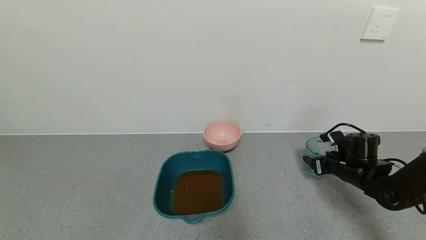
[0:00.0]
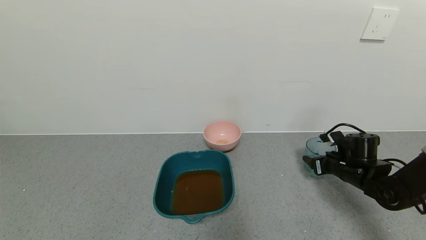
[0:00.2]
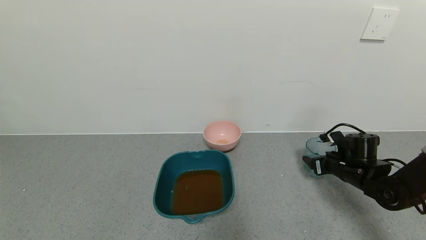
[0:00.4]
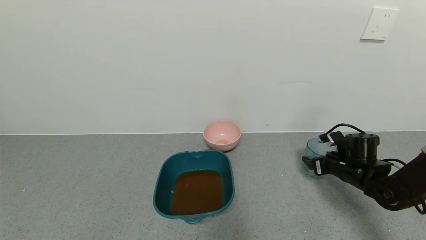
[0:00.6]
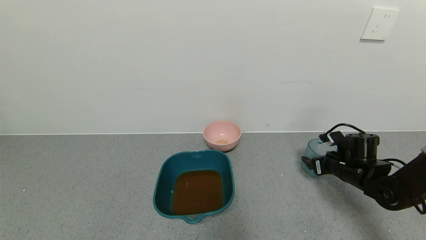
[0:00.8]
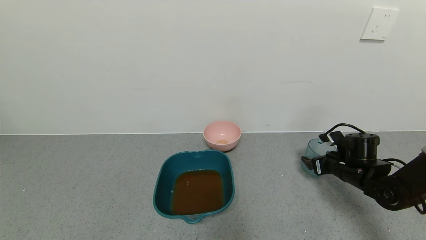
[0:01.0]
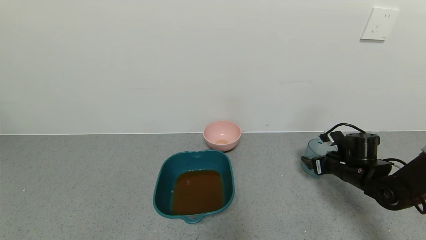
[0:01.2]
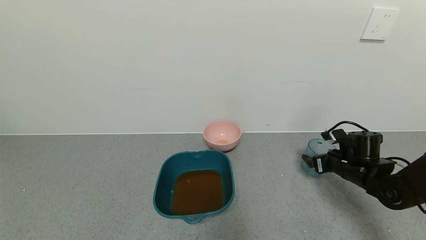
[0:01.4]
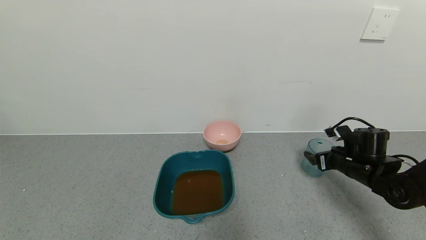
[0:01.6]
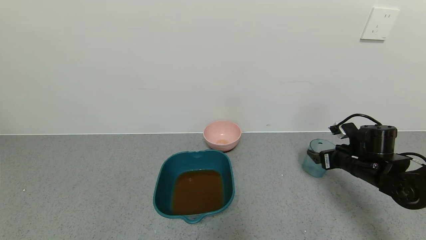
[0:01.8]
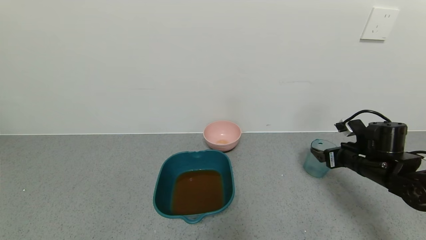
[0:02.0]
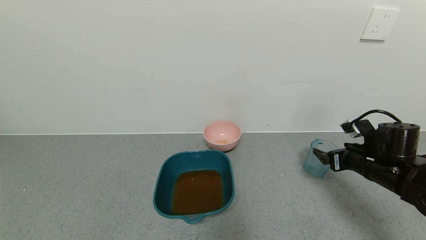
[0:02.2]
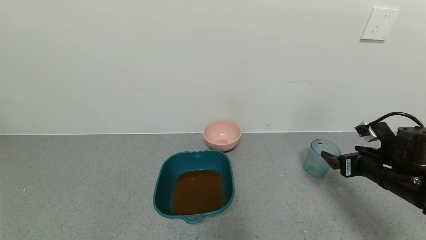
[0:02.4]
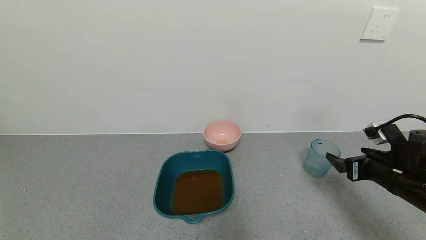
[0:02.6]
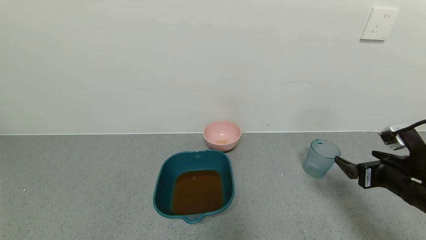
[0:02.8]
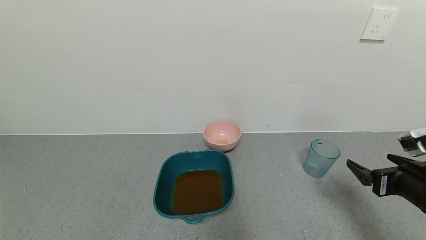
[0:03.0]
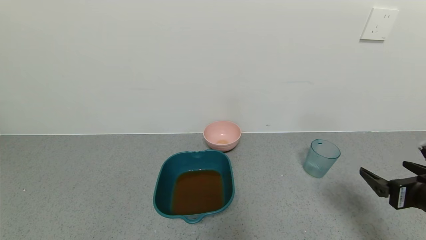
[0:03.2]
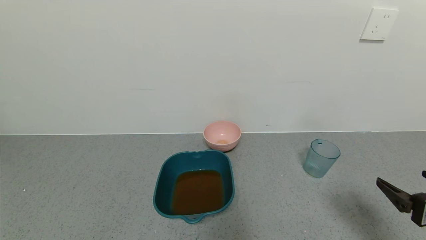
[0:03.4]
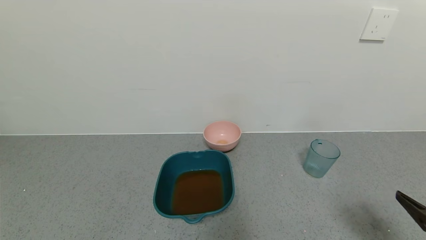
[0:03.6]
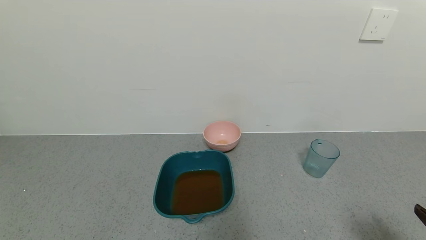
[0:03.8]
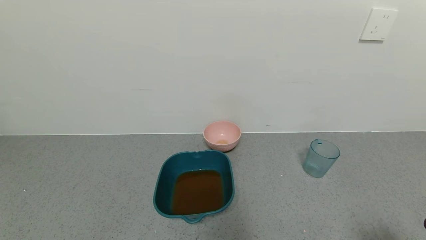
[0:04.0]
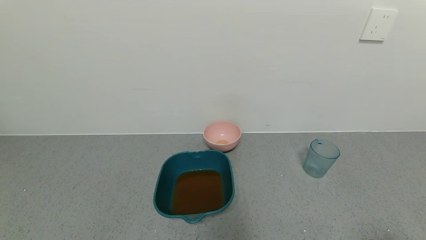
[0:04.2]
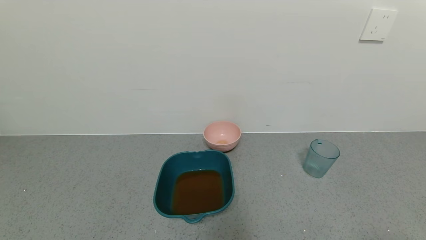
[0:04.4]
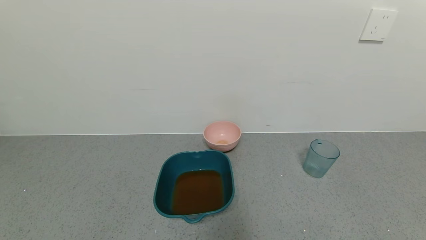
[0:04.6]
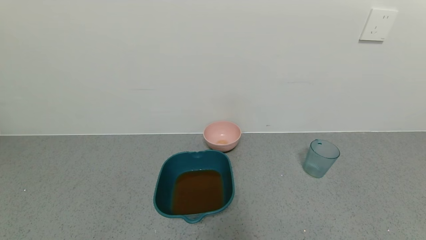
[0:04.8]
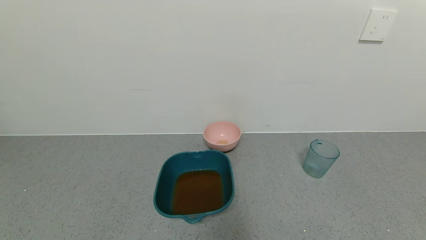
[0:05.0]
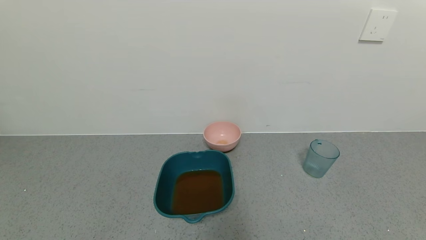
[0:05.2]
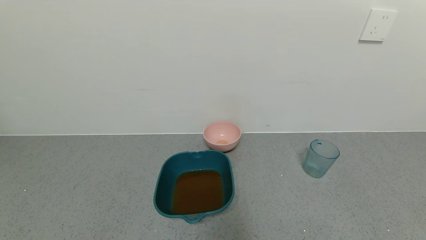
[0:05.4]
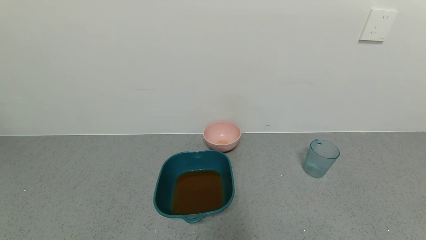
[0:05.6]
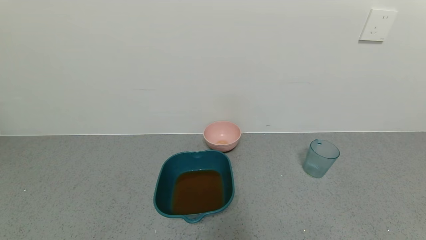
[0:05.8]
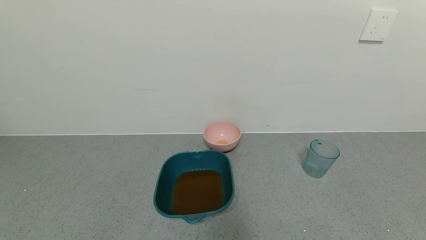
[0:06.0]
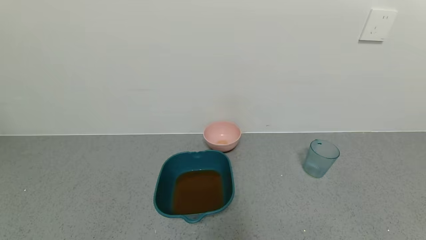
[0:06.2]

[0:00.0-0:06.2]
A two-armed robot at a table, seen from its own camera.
Task of the whole recording: use a gripper to pick up the cup and pour the liquid into a bowl or tray.
0:00.0 to 0:01.6: The right gripper opens up.
0:01.6 to 0:03.2: The right gripper goes about 20 cm backward.
0:03.2 to 0:04.6: The right gripper heads backward, covering about 15 cm.

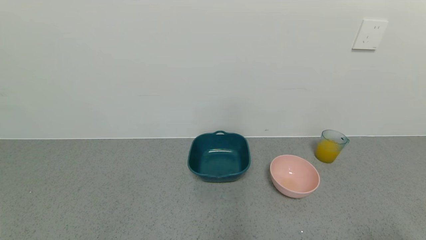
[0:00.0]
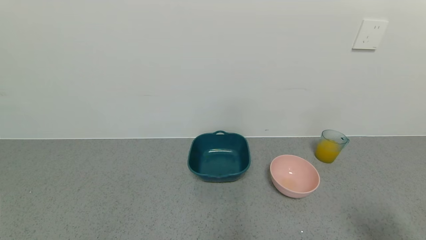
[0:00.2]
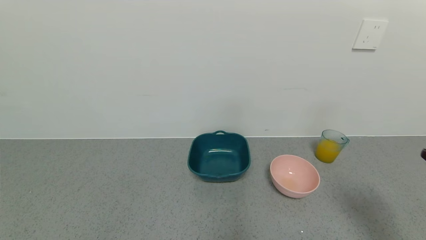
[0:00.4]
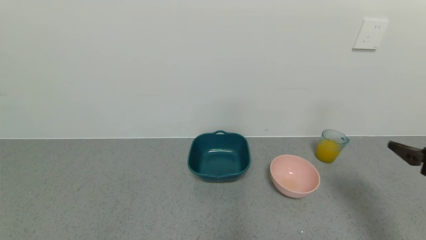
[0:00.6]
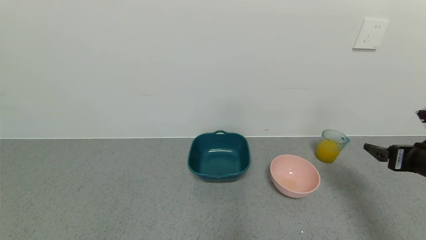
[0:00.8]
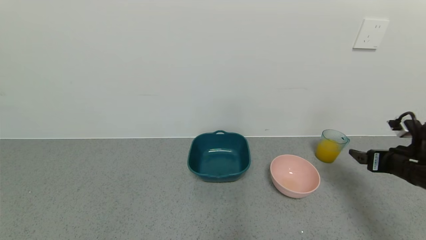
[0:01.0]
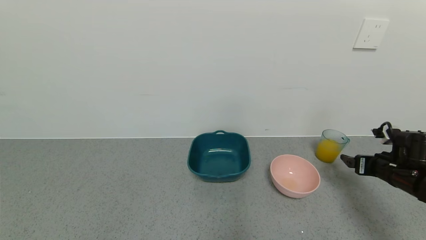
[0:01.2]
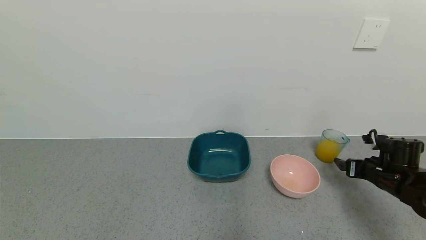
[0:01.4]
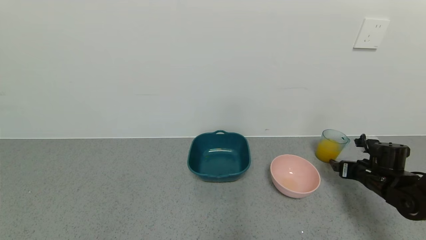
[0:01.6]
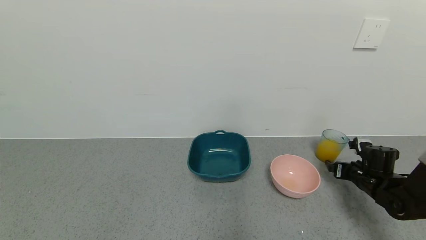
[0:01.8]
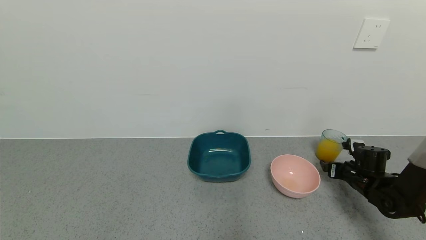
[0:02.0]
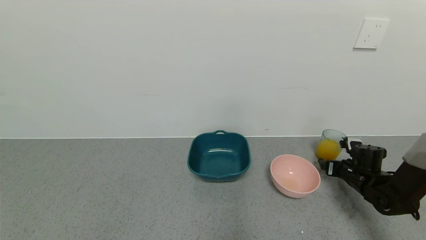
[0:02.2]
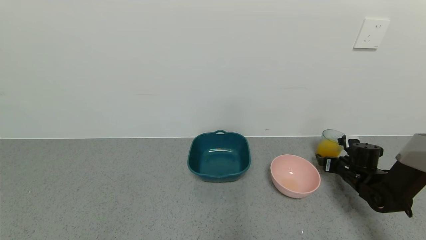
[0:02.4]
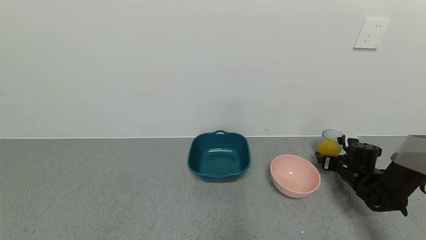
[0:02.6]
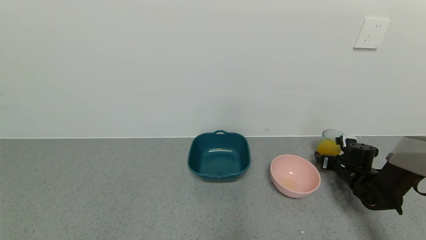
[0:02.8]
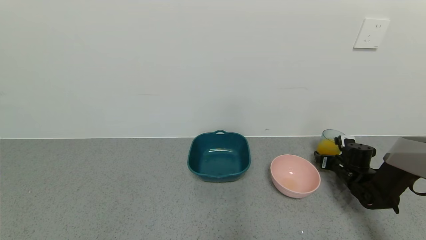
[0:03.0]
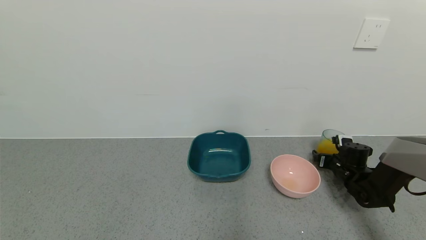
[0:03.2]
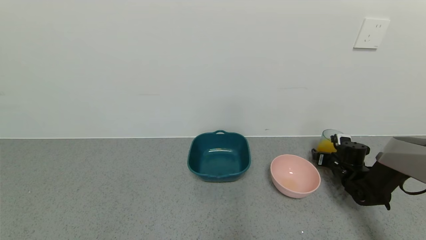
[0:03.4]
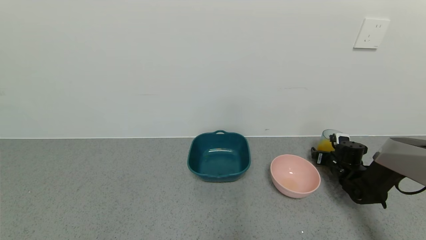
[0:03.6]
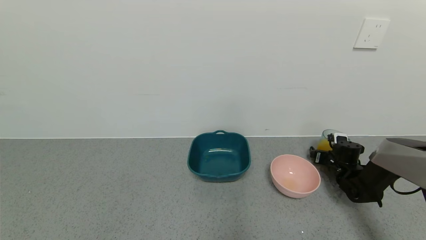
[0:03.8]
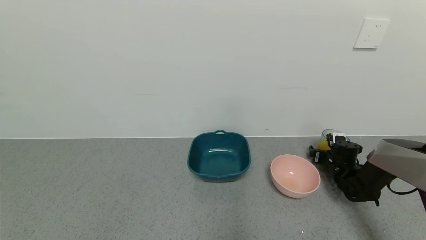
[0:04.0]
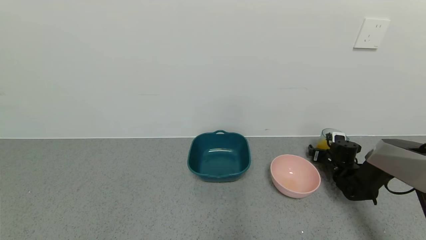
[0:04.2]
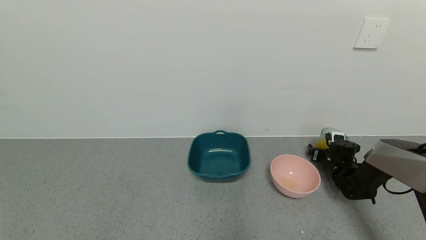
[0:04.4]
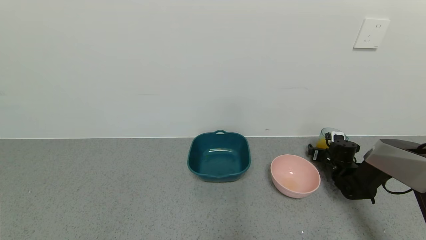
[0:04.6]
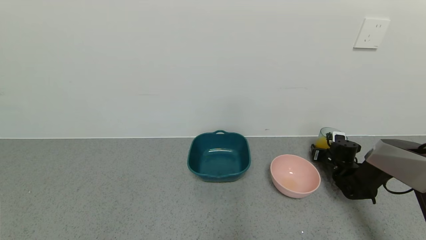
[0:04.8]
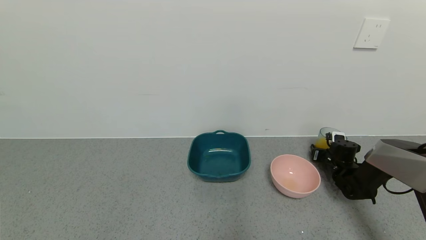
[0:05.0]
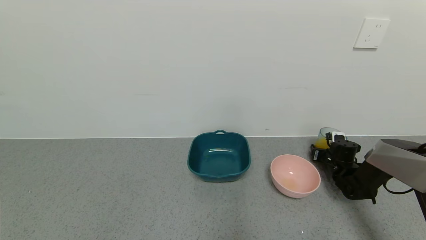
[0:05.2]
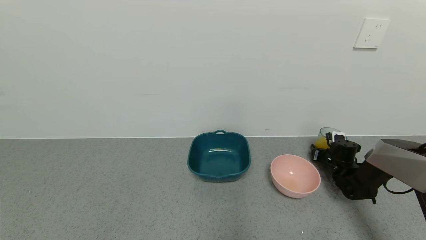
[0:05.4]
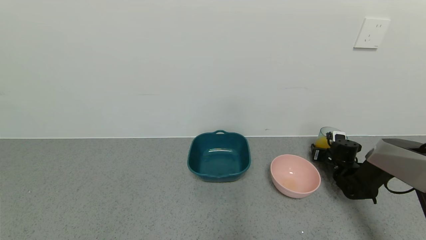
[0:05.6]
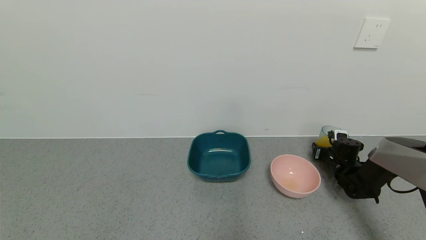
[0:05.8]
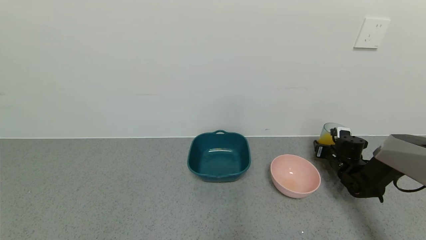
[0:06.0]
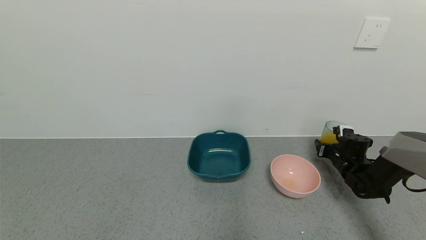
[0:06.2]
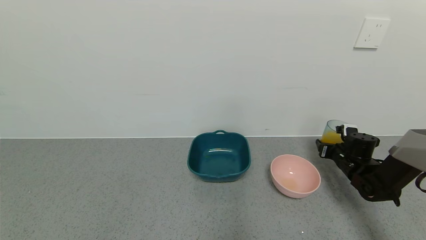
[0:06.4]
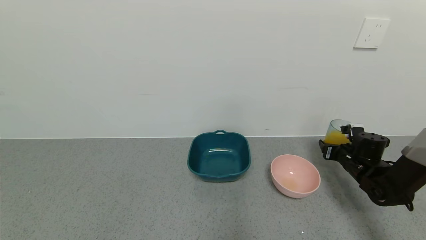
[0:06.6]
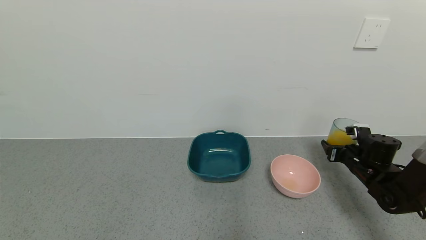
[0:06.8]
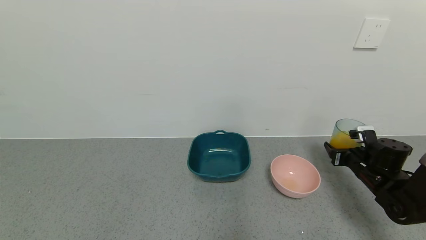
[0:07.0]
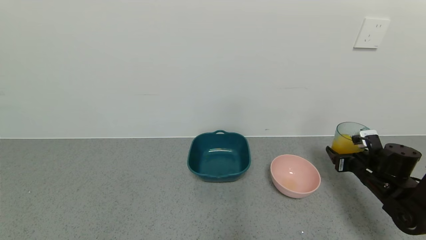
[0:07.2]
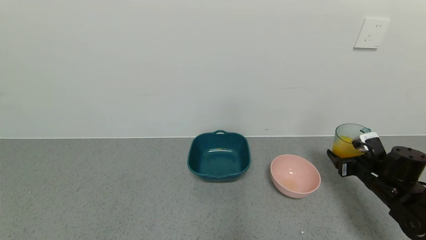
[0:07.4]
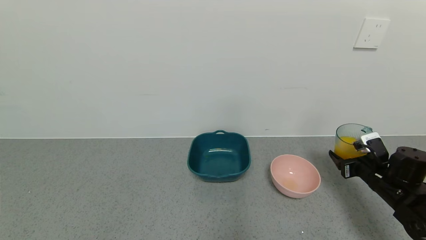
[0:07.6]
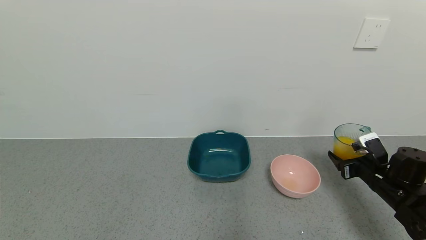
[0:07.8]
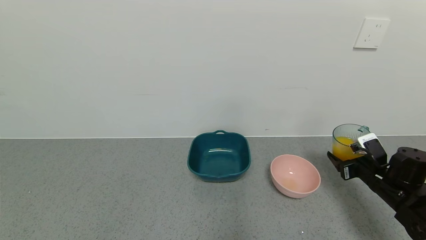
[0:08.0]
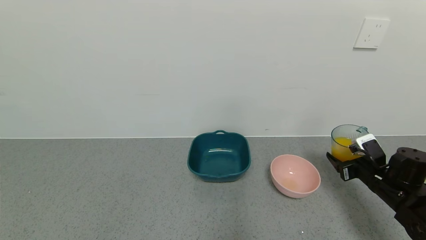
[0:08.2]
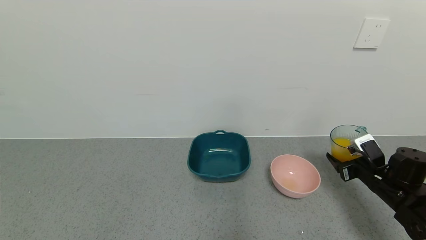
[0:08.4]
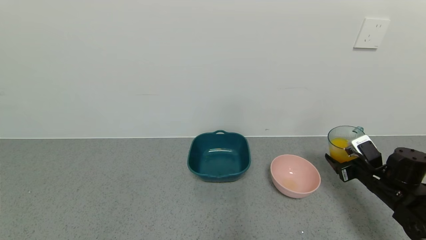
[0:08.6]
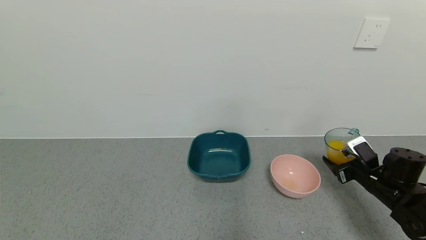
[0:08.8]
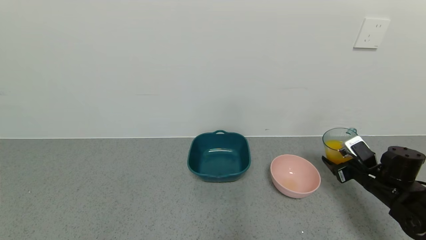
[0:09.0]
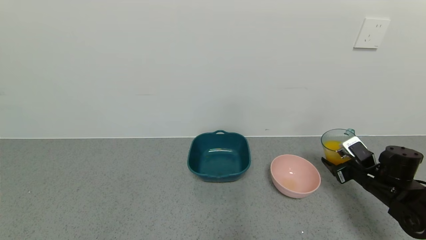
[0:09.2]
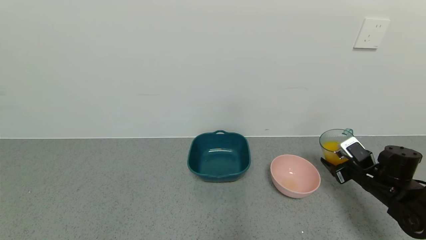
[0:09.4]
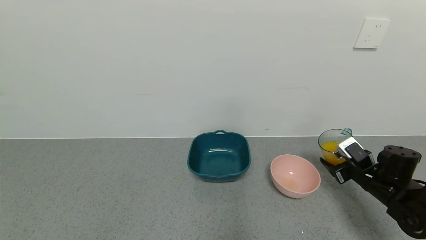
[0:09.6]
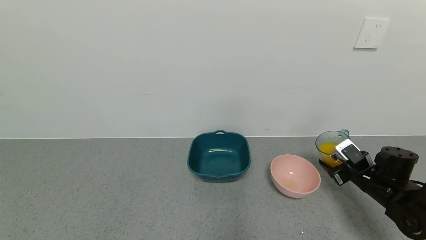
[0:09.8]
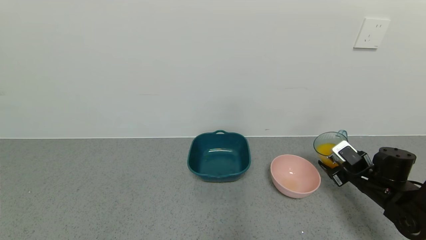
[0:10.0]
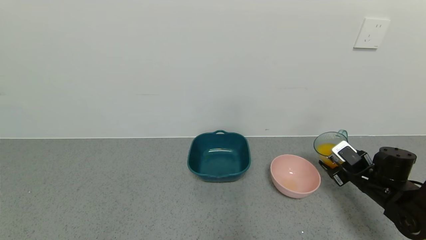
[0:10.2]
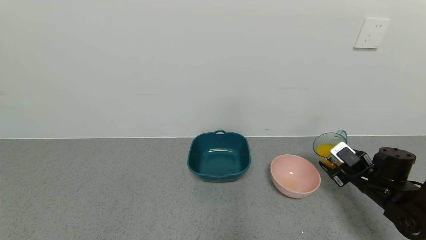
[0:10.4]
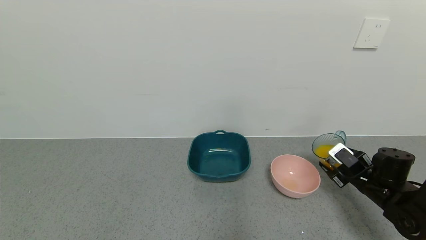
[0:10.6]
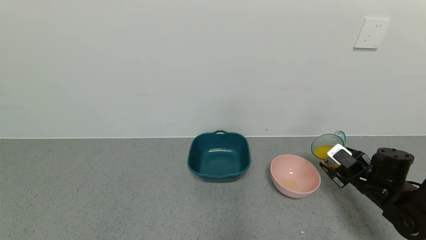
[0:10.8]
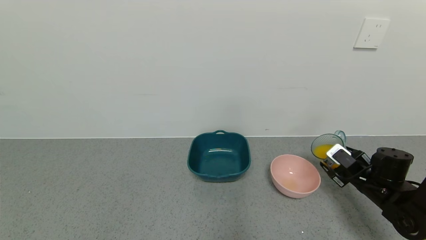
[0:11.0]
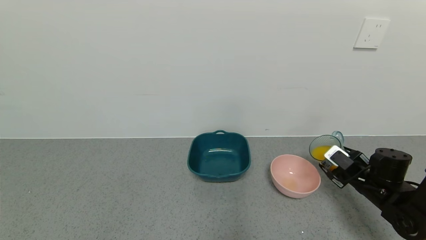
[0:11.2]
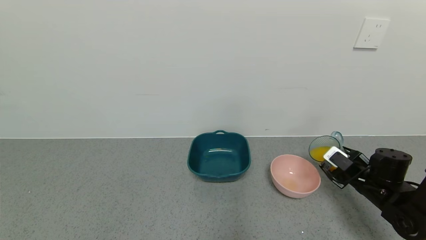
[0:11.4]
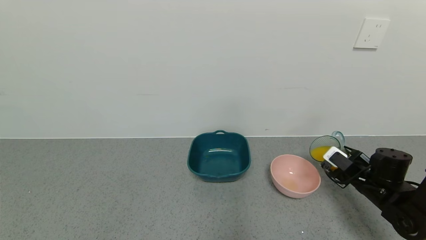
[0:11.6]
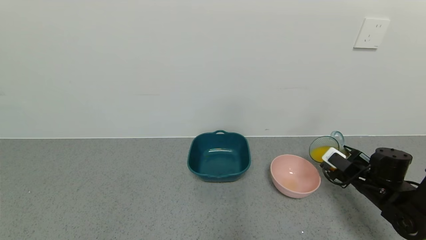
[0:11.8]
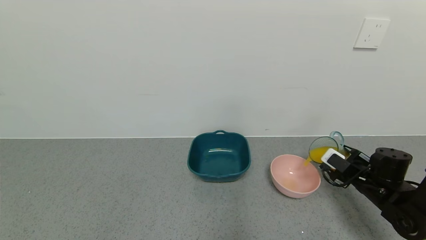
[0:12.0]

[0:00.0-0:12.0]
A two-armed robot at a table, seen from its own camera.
Task of the whole recording: use a gripper to pick up the cup and pour the liquid into a bowl or tray.
Step, 0:00.0 to 0:05.6: Grasp the glass of orange juice with the right gripper.
0:00.0 to 0:01.6: The right gripper goes about 35 cm forward and downward.
0:01.6 to 0:03.0: The right gripper heads forward, covering some 5 cm.
0:03.0 to 0:04.4: The grippers stay close to where they were, moving slightly.
0:04.4 to 0:06.0: The right gripper closes.
0:06.0 to 0:07.6: The right gripper travels backward and upward by approximately 15 cm.
0:07.6 to 0:09.0: The grippers stay close to where they were, moving slightly.
0:09.0 to 0:10.4: The grippers stay close to where they were, moving slightly.
0:10.4 to 0:12.0: There are only small adjustments of the grippers.
